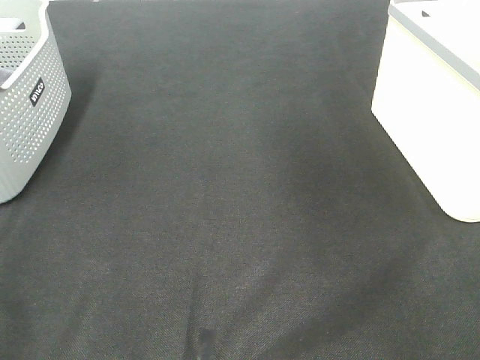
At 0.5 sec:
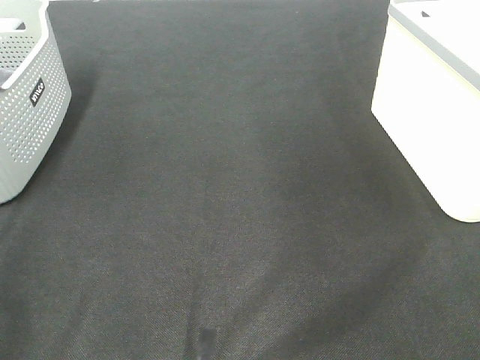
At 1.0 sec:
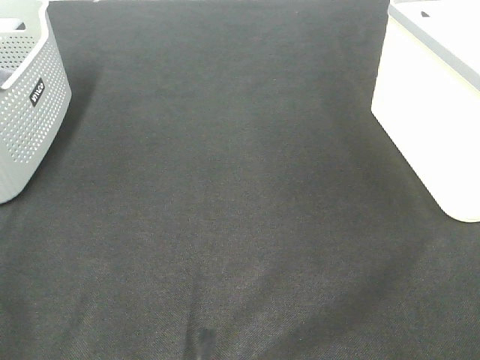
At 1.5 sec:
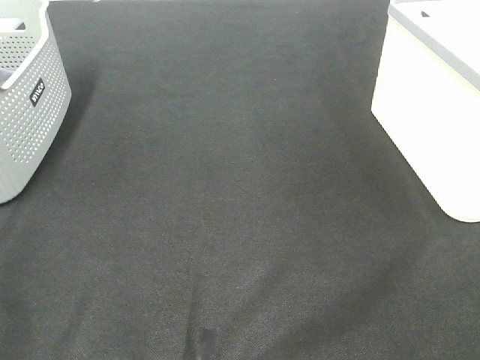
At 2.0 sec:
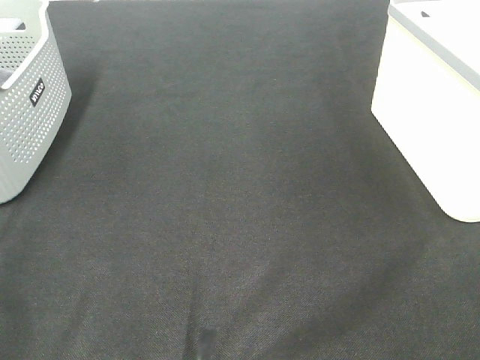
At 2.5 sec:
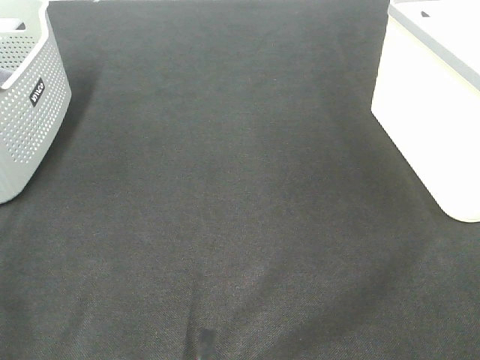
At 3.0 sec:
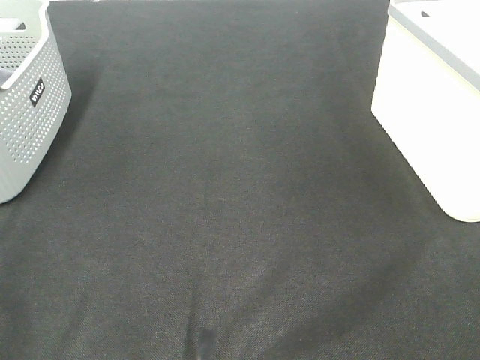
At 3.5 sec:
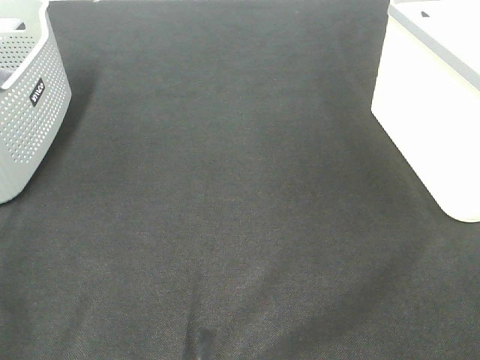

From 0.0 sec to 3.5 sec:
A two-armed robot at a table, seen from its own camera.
From 2.0 sec to 3.5 sec: Neither gripper changes place.
